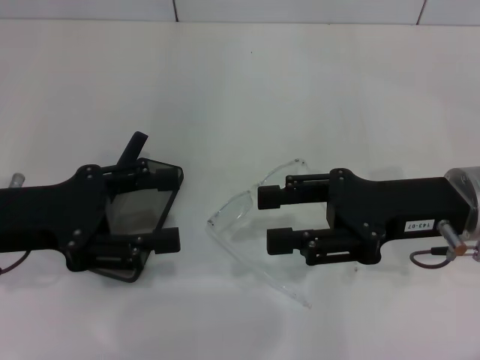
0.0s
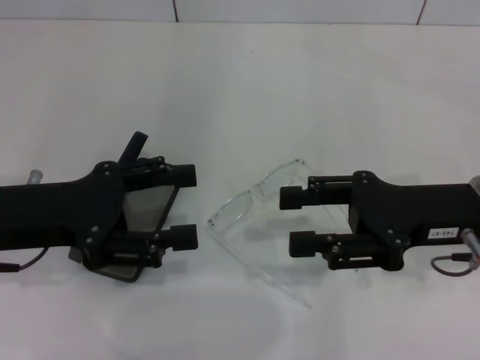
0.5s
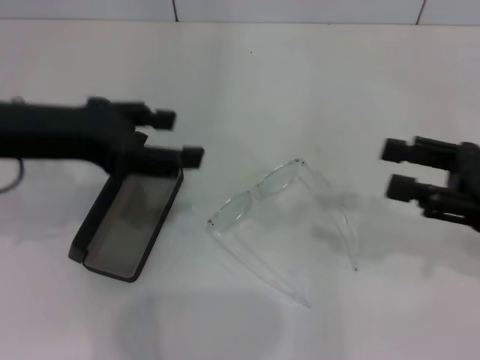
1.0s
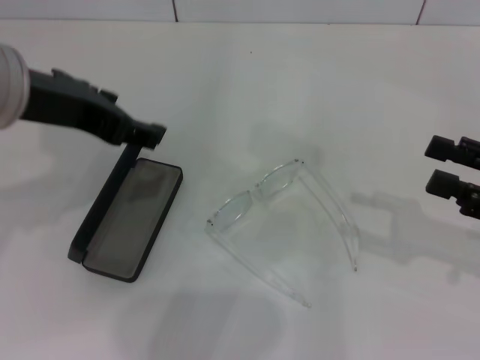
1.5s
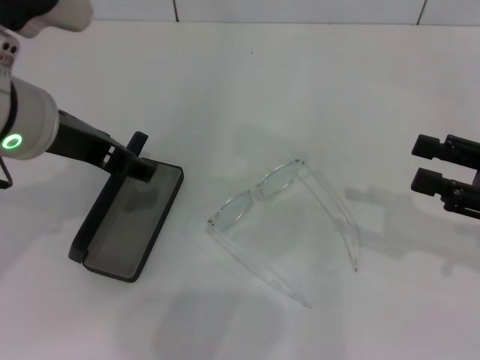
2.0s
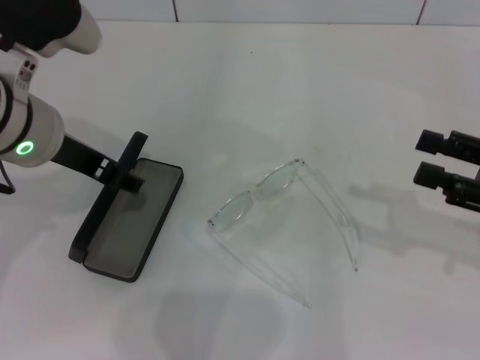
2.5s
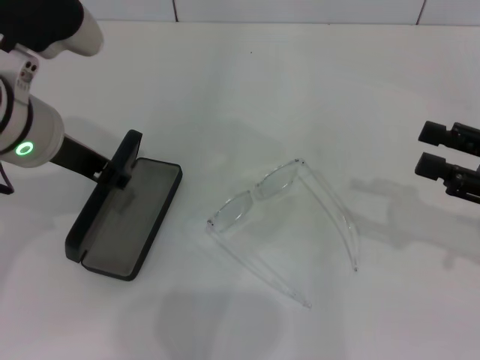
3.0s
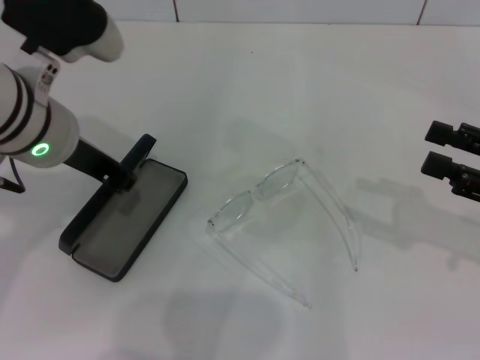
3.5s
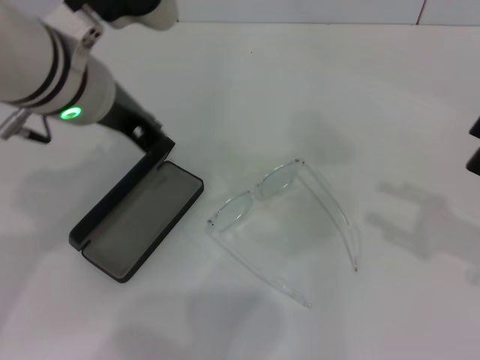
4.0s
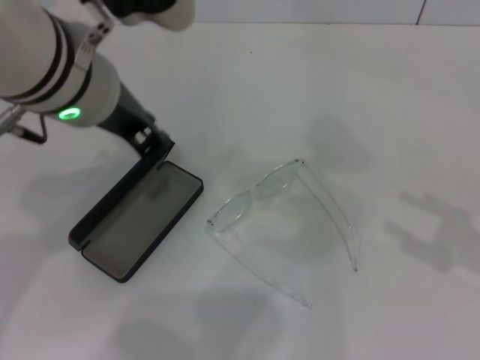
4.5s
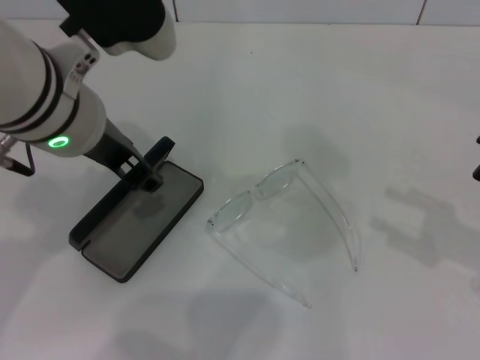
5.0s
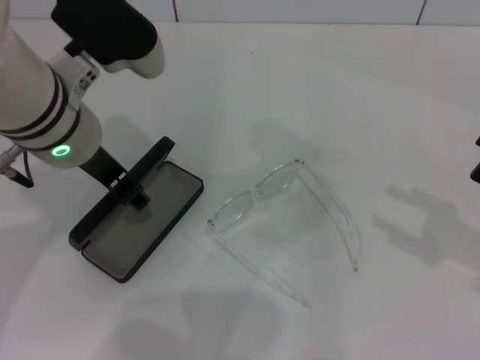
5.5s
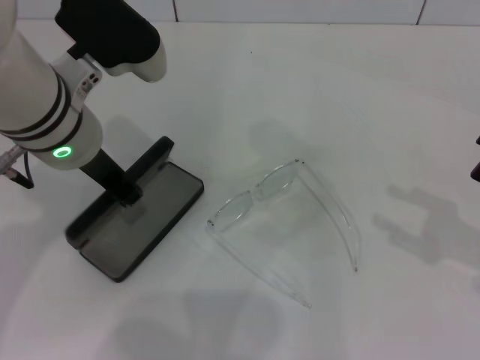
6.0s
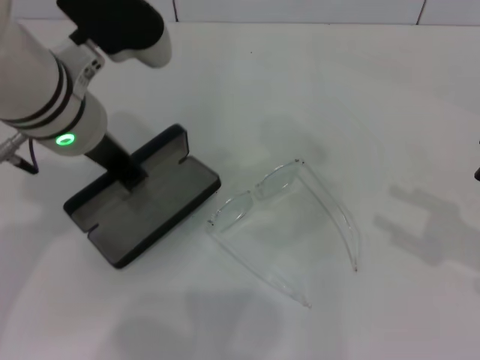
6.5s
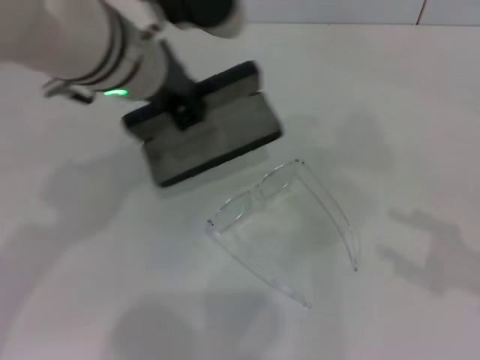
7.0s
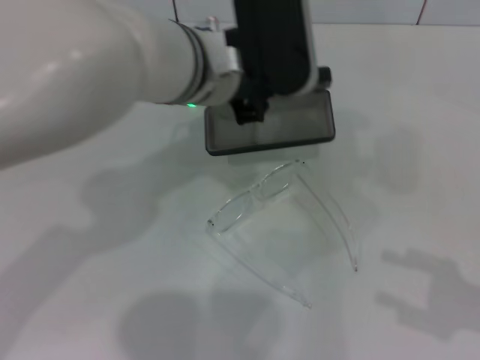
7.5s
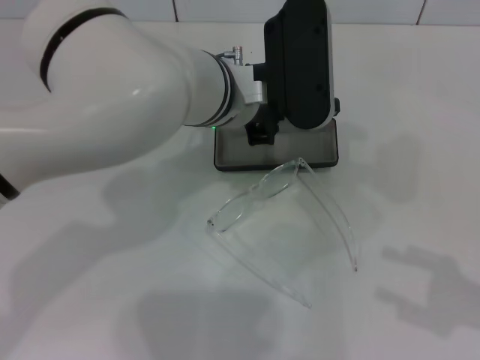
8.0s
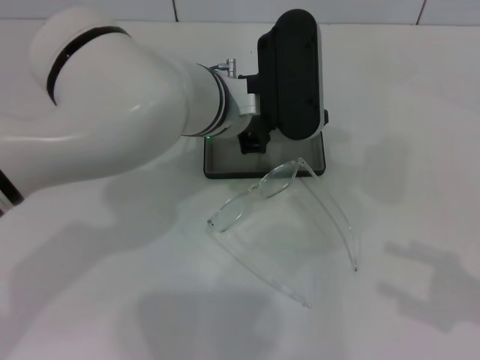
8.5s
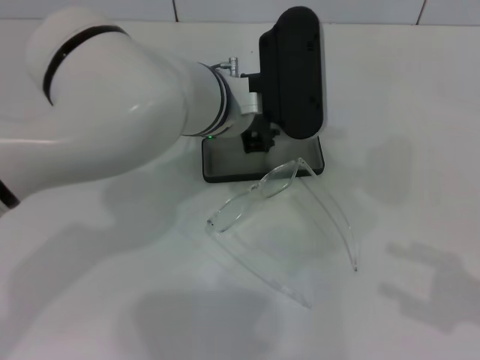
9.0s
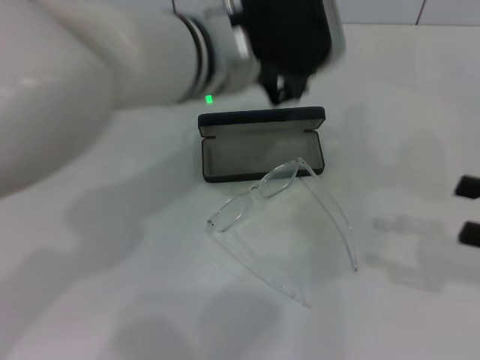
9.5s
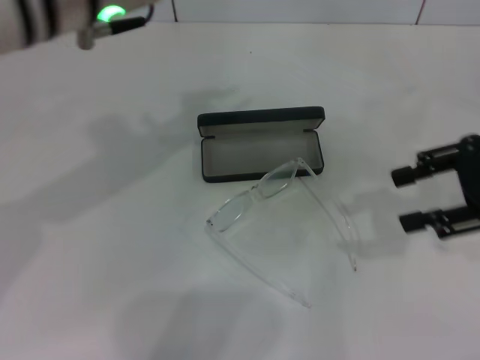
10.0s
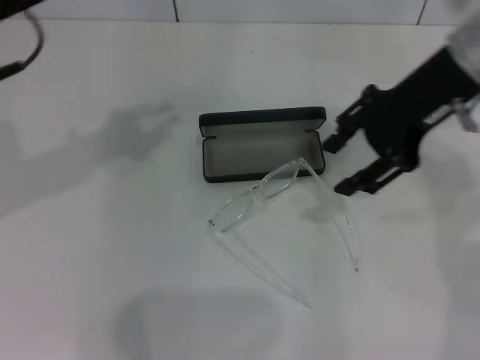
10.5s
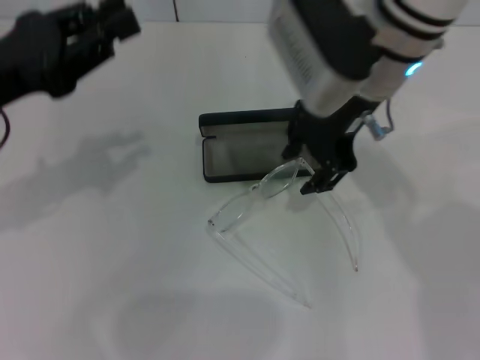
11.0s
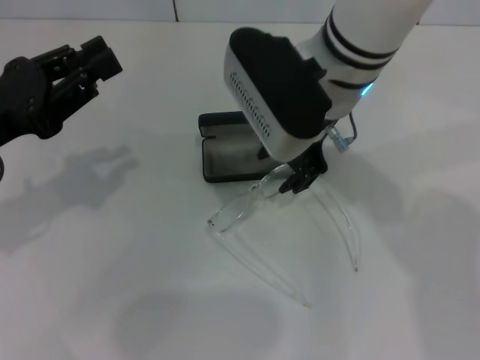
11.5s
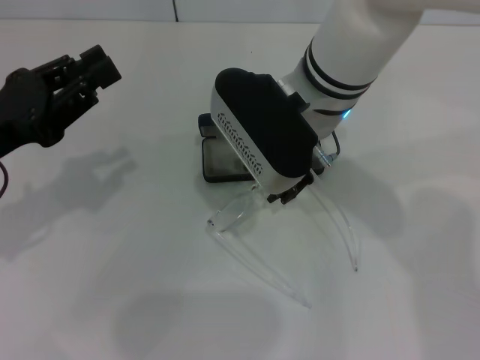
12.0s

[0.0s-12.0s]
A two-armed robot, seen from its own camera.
Step, 0.0s to 6.0s: Grab the glasses case with your left hand.
Step, 6.5s to 8.5s: Place the glasses case in the center of the table with your left hand.
0.0s to 2.0s: The left gripper is displaced to the right and upward by about 10 cm, while the right gripper heads to the right, covering approximately 10 cm.
2.0s to 4.0s: The left gripper shifts by roughly 5 cm, and closes its fingers.
4.0s to 6.0s: The left gripper opens its fingers.
6.0s to 8.0s: The left gripper moves to the right, roughly 10 cm. Meanwhile the right gripper moves backward, some 5 cm.
8.0s to 10.0s: The left gripper heads upward and to the left, covering about 15 cm. The right gripper moves forward, upward and to the left, approximately 20 cm.
10.0s to 12.0s: The left gripper shifts about 20 cm to the left and downward. The right gripper travels to the left by approximately 25 cm.

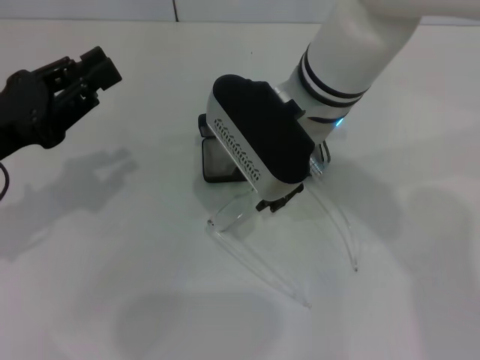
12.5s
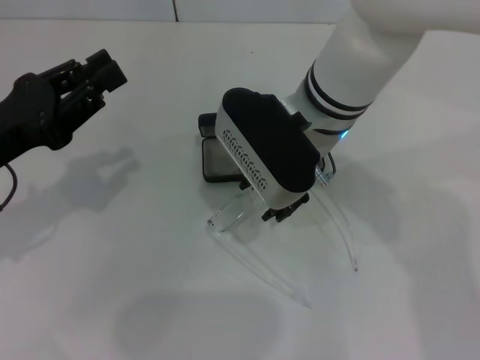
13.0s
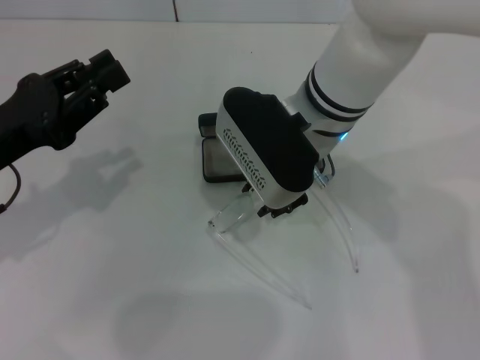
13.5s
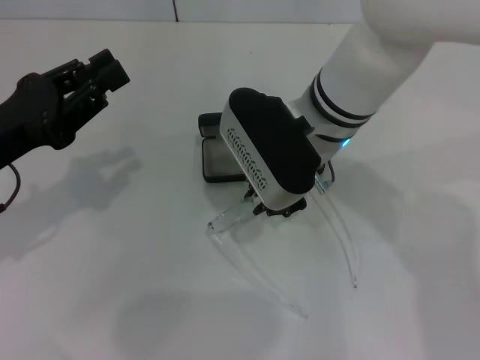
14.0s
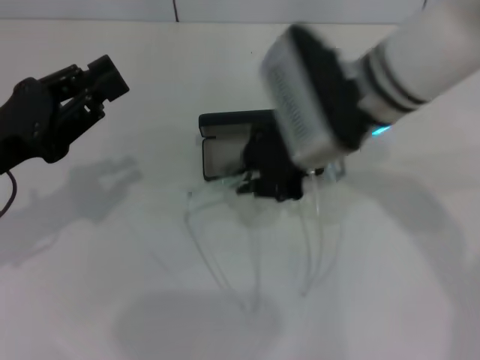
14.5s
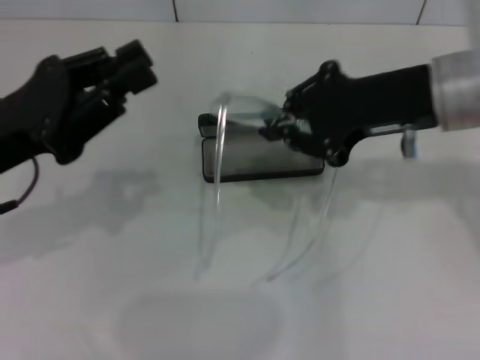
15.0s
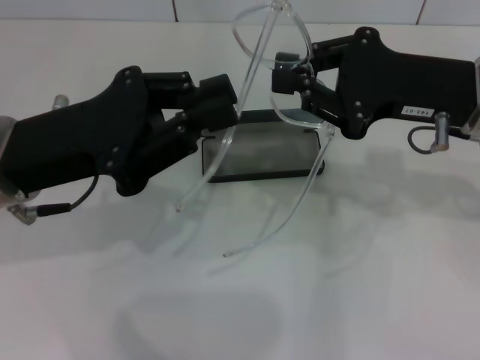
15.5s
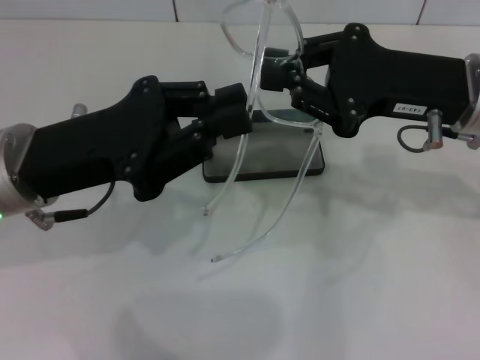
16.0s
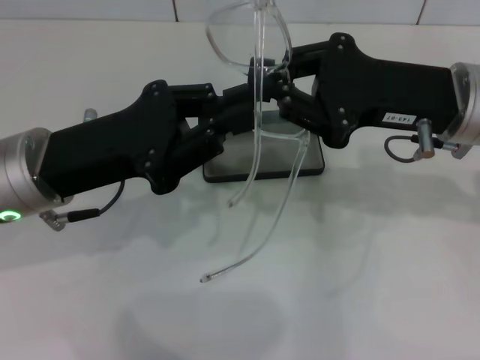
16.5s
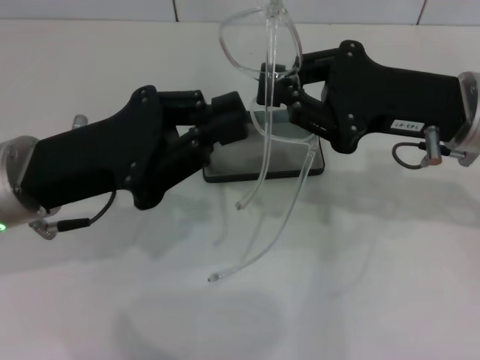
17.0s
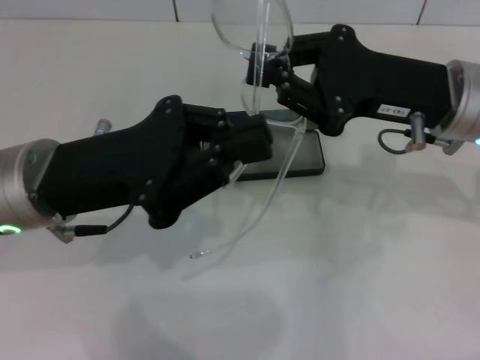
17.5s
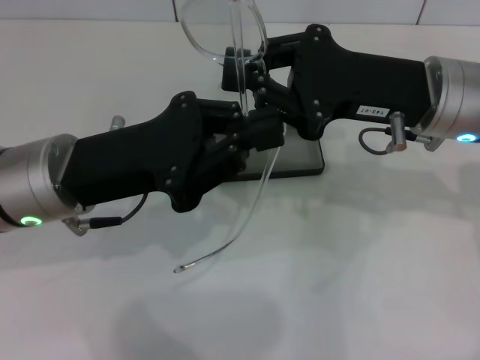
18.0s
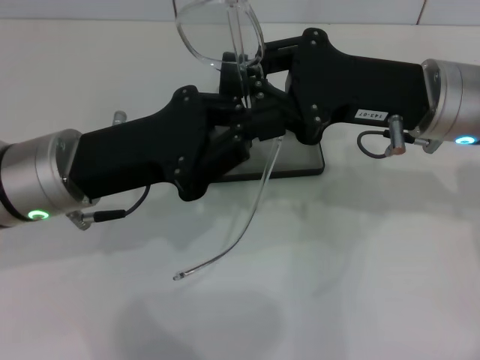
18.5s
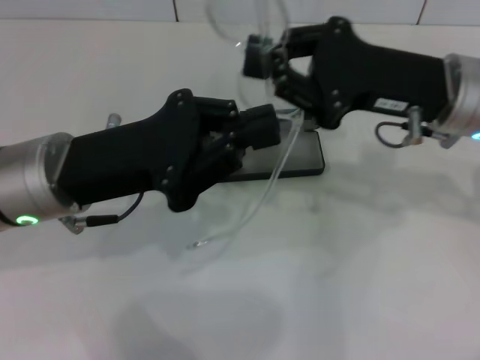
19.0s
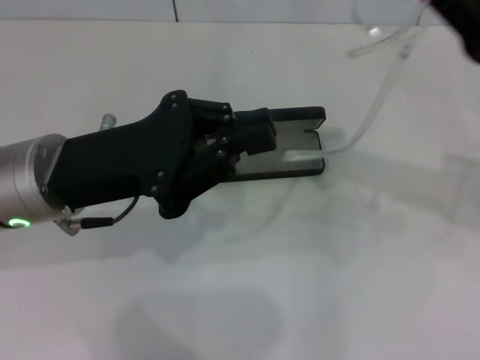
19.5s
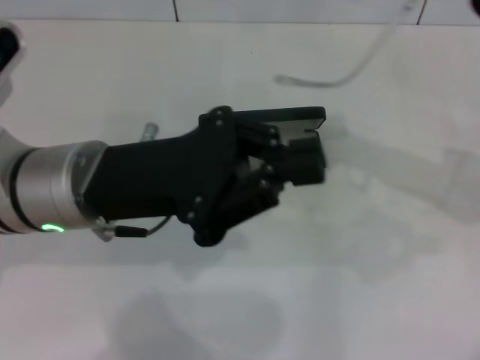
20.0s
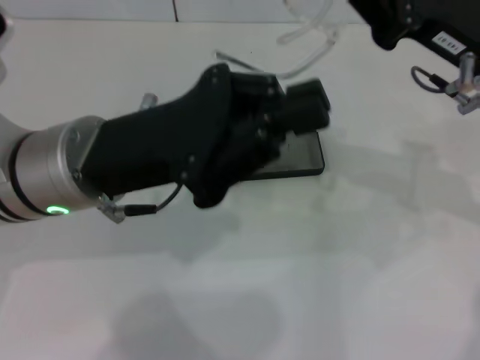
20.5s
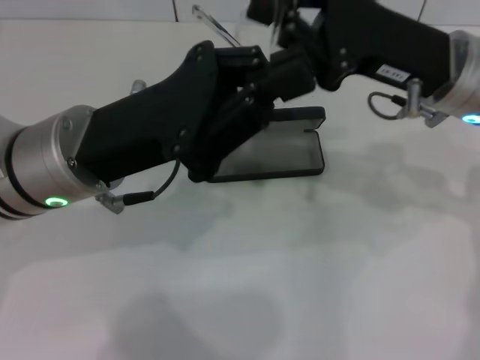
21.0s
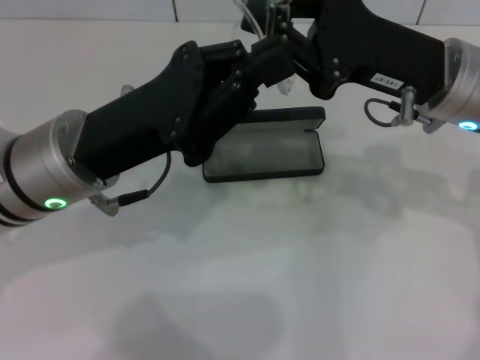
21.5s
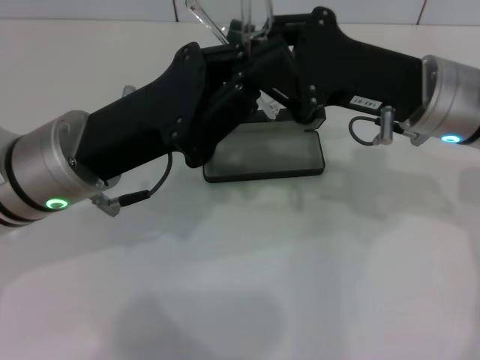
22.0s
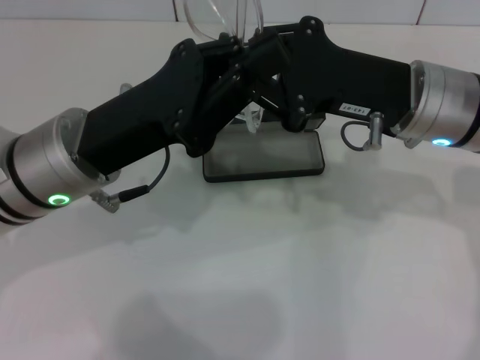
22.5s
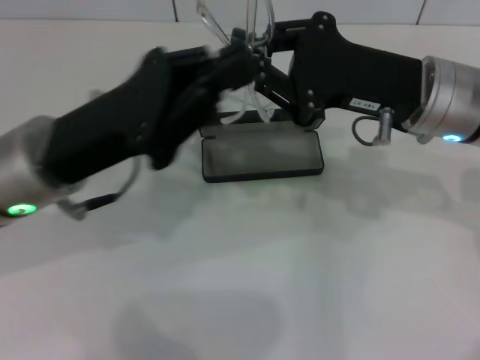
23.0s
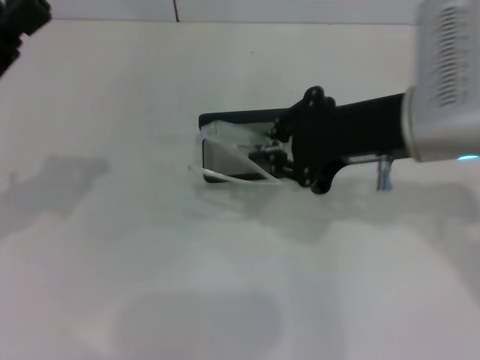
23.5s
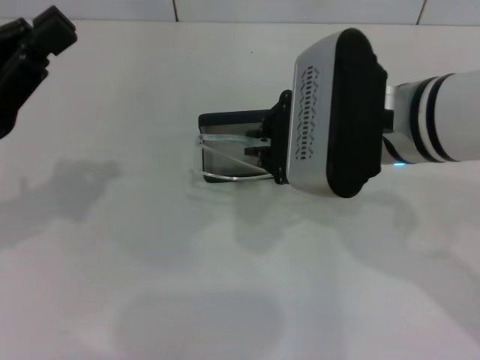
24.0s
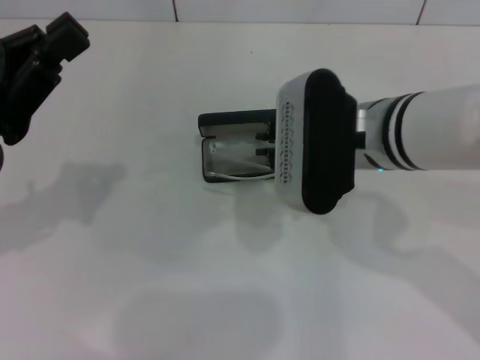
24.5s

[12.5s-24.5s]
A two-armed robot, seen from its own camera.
Step, 14.5s to 22.5s: Lift the glasses with your right hand.
12.5s to 14.5s: The right gripper closes its fingers.
14.5s to 16.5s: The two grippers go some 10 cm to the right.
16.5s to 18.5s: The grippers stay close to where they were, moving slightly.
20.5s to 22.5s: The right gripper moves roughly 5 cm.
22.5s to 24.5s: The right gripper moves to the left, some 5 cm, while the left gripper heads to the left, covering about 10 cm.

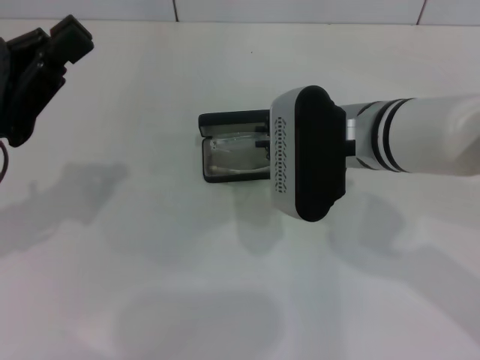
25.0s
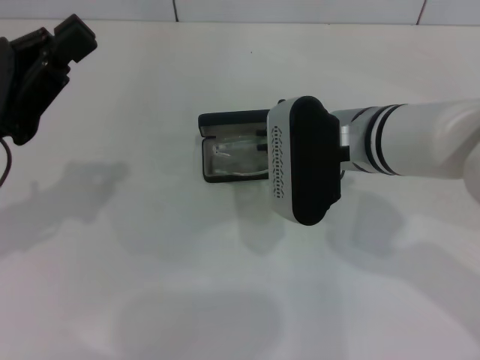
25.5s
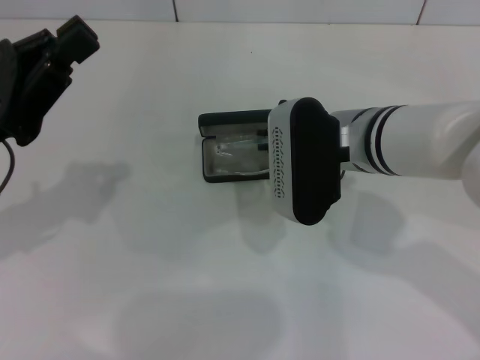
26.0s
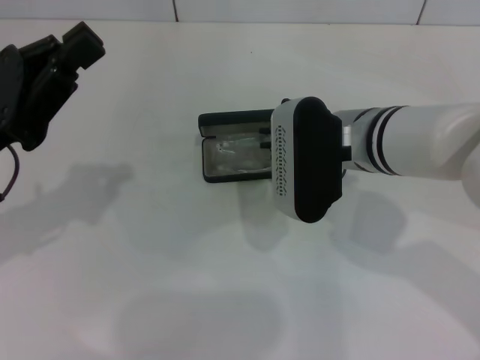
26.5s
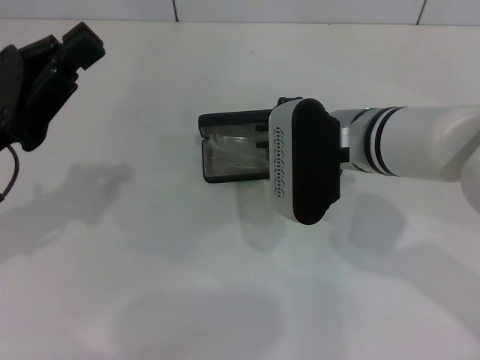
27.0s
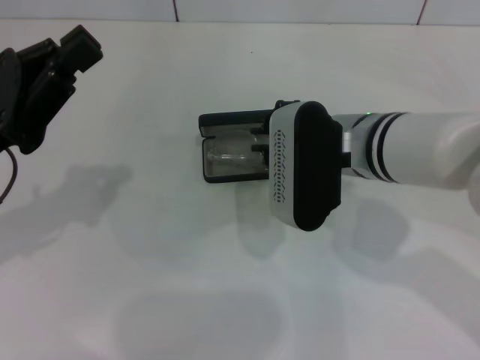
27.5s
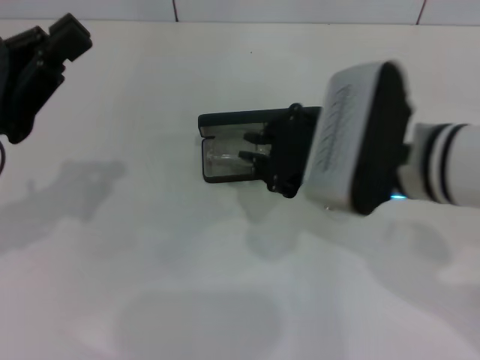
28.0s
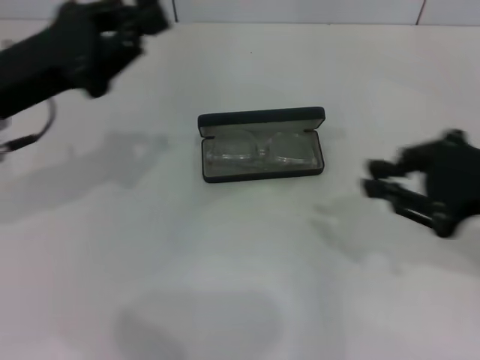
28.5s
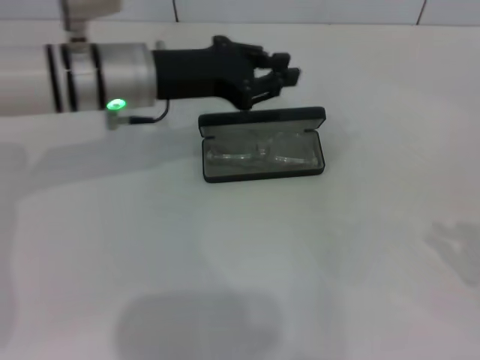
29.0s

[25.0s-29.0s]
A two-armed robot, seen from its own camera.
Step, 25.0s to 27.0s: Put the glasses into the case with your right hand.
25.0s to 27.0s: There are only small adjustments of the grippers.
27.0s to 29.0s: The right gripper travels to the right and backward by about 30 cm; the left gripper travels forward and to the right by roughly 20 cm.
